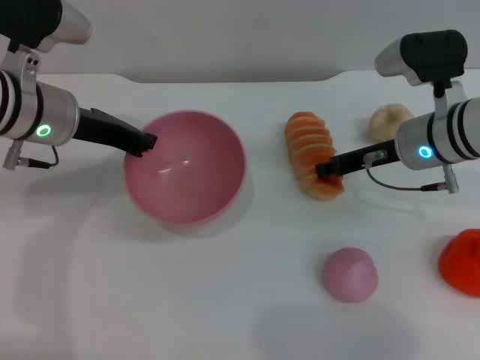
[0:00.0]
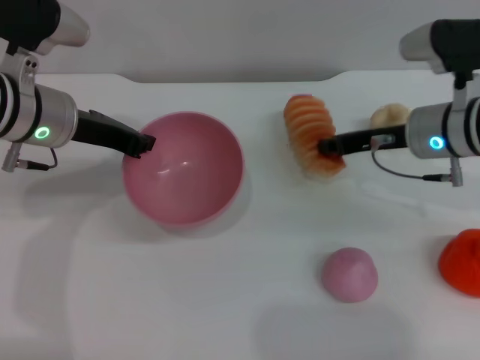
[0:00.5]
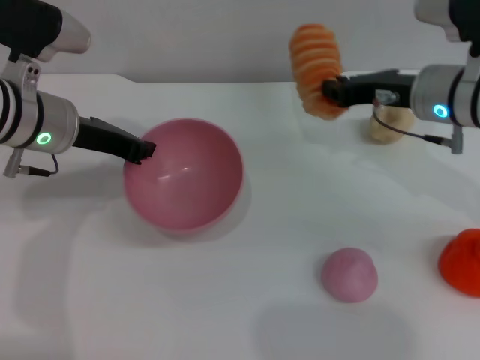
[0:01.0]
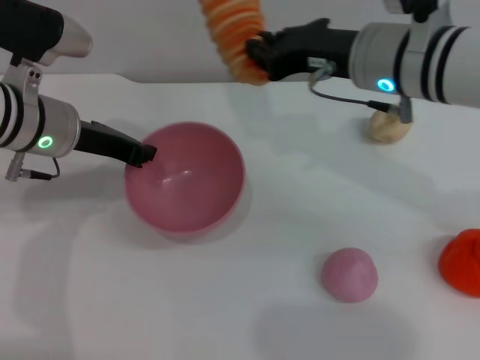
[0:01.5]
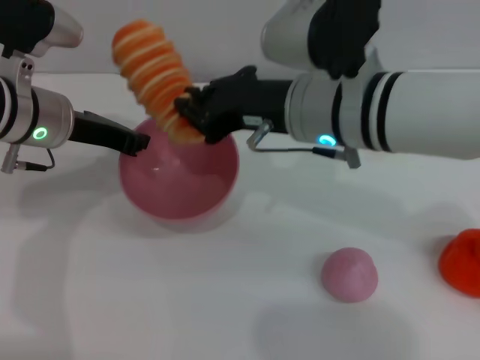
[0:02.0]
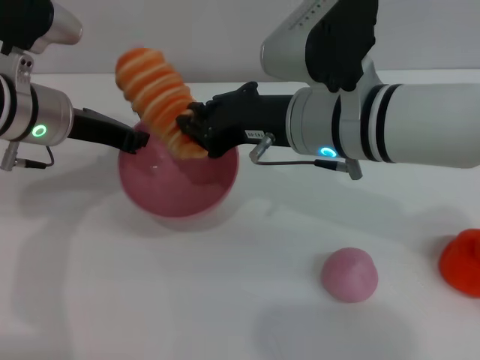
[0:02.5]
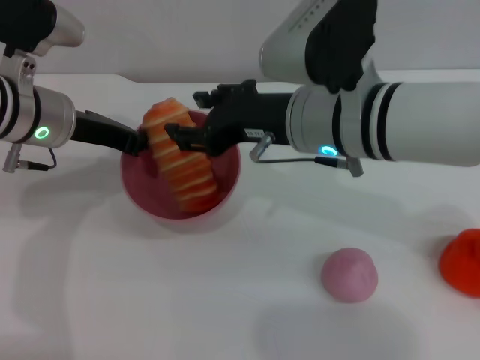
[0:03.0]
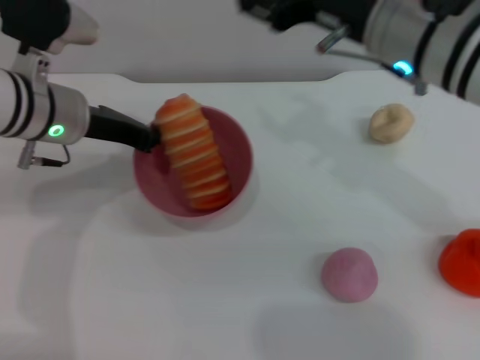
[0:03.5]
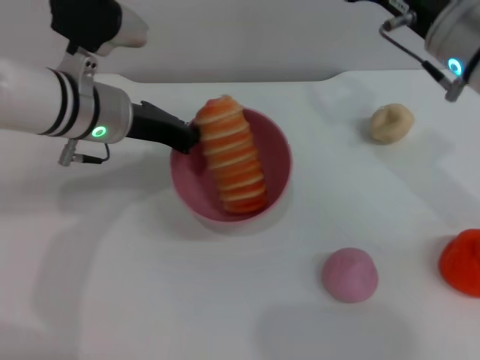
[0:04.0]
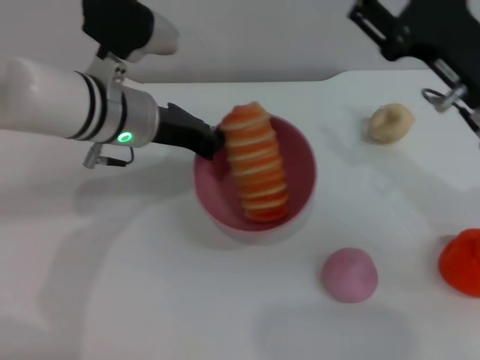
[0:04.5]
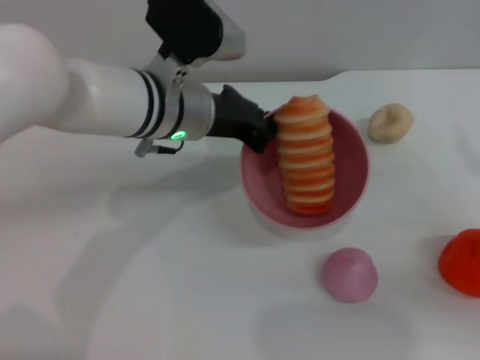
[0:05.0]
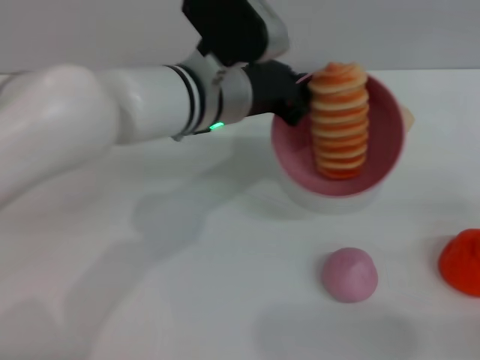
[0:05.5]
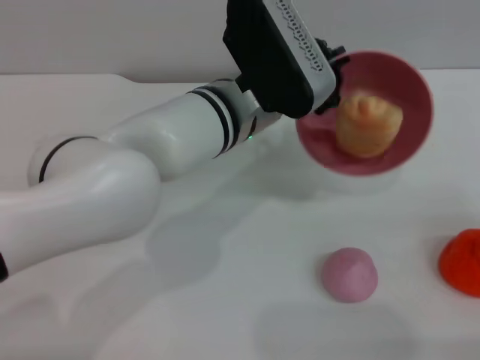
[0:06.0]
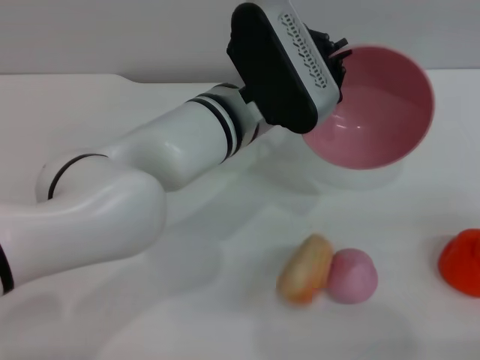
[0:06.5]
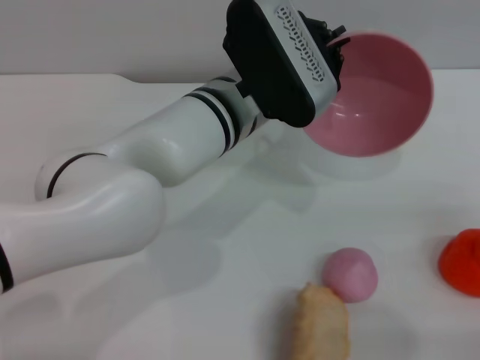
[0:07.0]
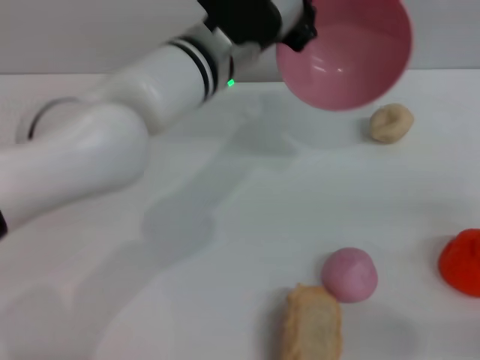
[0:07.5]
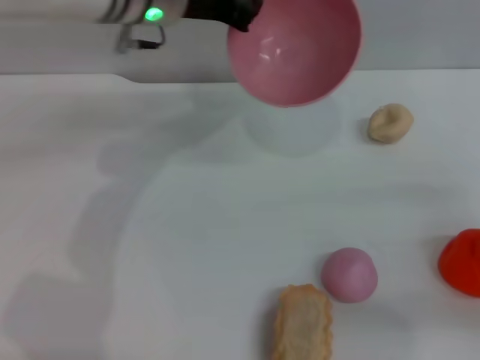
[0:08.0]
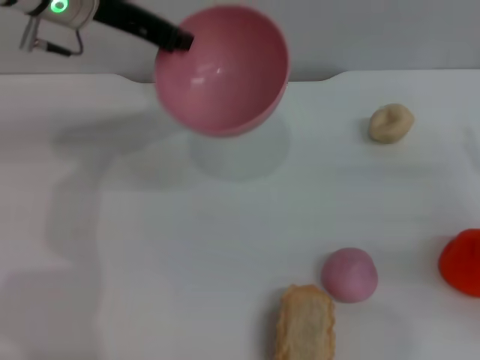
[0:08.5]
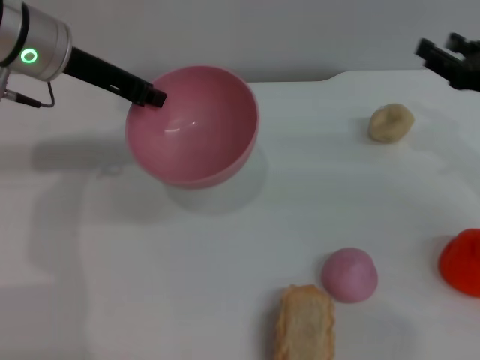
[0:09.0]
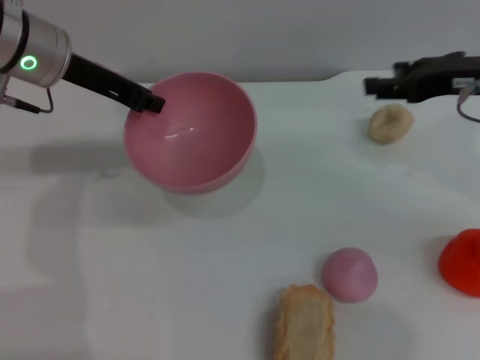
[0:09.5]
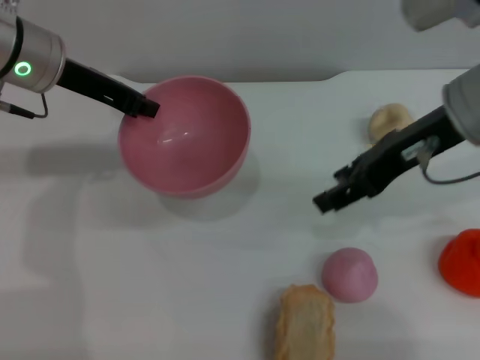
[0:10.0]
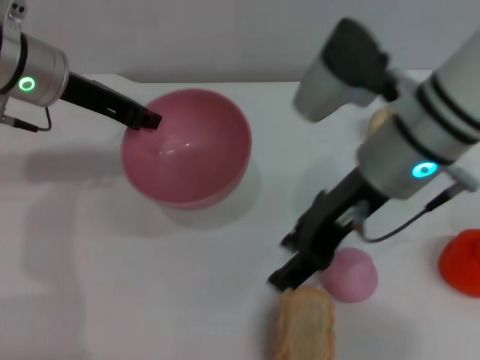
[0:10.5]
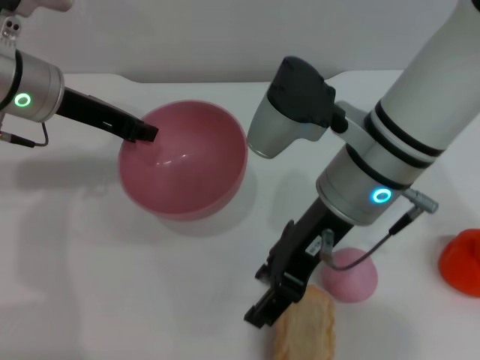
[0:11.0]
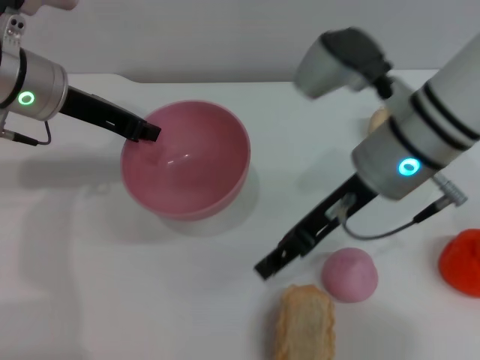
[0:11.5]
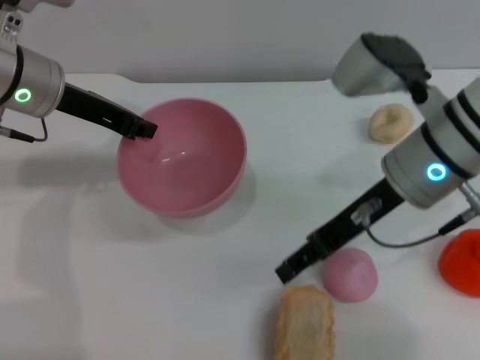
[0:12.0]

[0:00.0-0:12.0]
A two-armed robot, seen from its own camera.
Task of the whole recording: put the bread into the pink bowl and pour it out repeatedly.
Step, 0:01.0 to 0:03.0: Place the bread into the bowl.
Step, 0:03.5 to 0:07.0: Pour the bread out of the bowl.
0:00.0 to 0:02.0: The right gripper moves to the left, upward and backward, roughly 15 cm.
0:02.0 to 0:04.0: The left gripper travels to the right by about 5 cm. The right gripper heads to the right, covering approximately 10 cm, and opens its fingers.
0:04.0 to 0:06.0: The right gripper heads to the right and backward, covering roughly 25 cm; the left gripper travels to the right by approximately 15 cm.
0:06.0 to 0:08.0: The left gripper goes about 15 cm forward, to the left and upward, while the right gripper changes place by some 5 cm.
0:08.0 to 0:10.0: The left gripper moves to the left, about 10 cm. The right gripper shifts about 25 cm to the left, upward and forward.
0:10.0 to 0:12.0: The right gripper travels downward by approximately 5 cm.

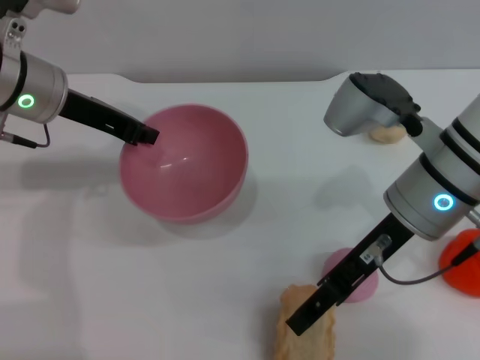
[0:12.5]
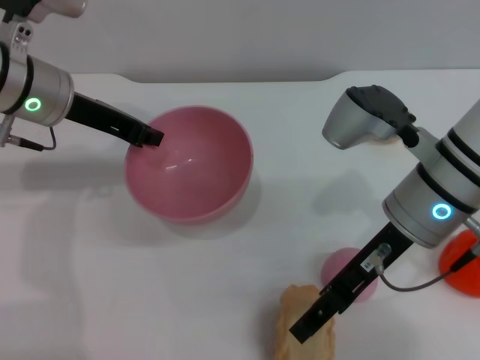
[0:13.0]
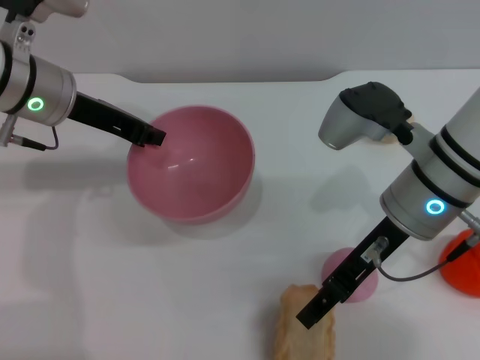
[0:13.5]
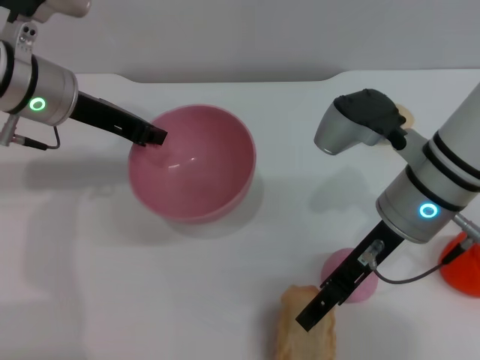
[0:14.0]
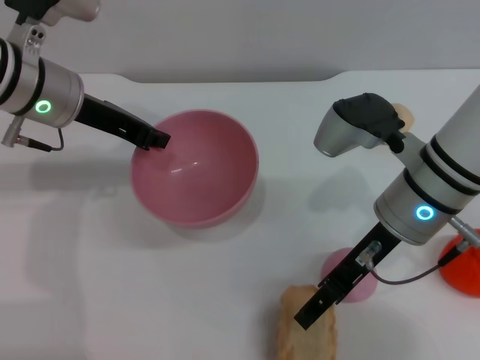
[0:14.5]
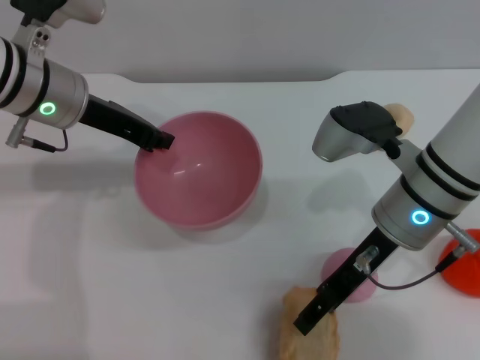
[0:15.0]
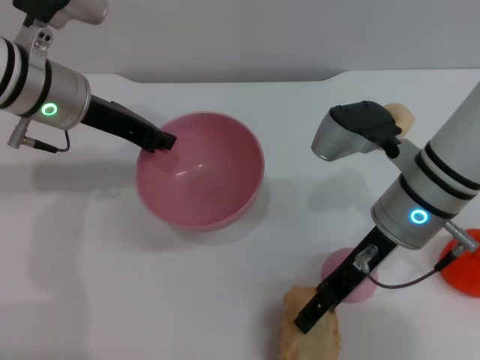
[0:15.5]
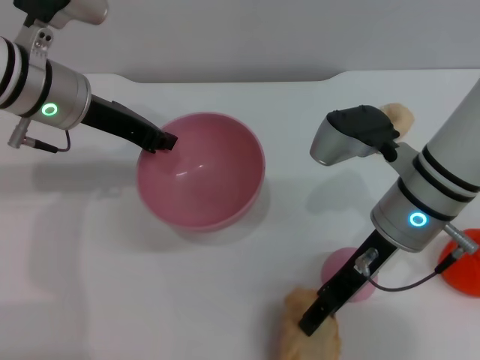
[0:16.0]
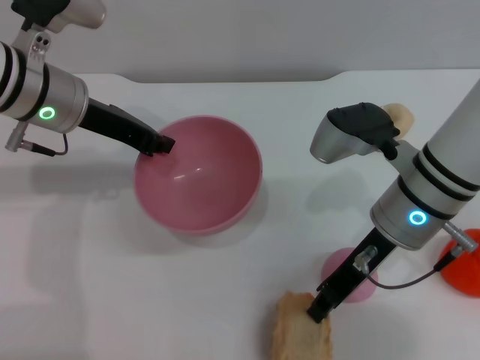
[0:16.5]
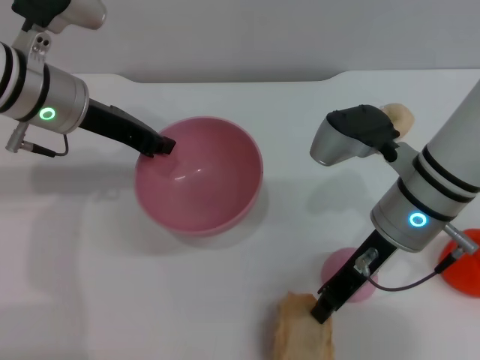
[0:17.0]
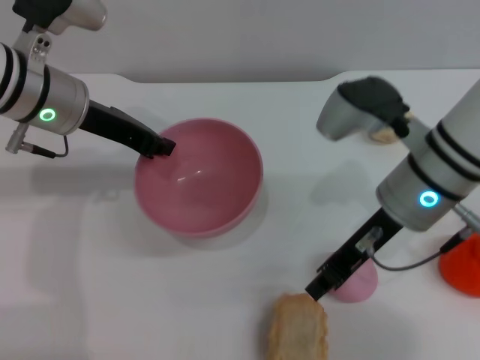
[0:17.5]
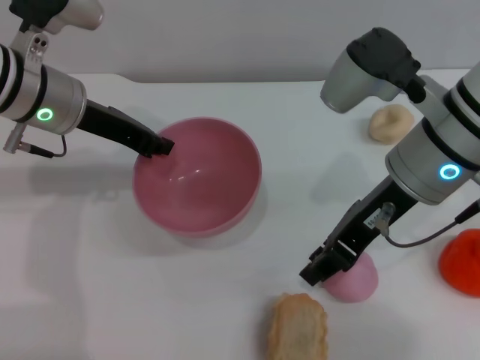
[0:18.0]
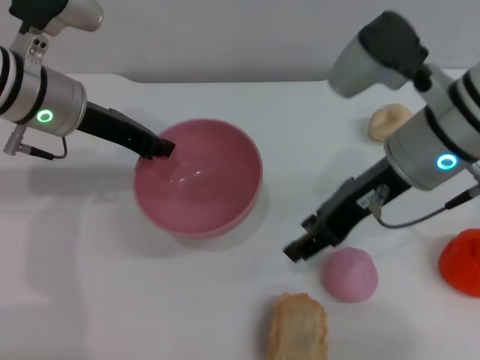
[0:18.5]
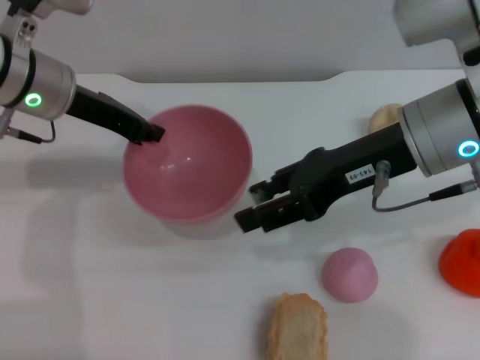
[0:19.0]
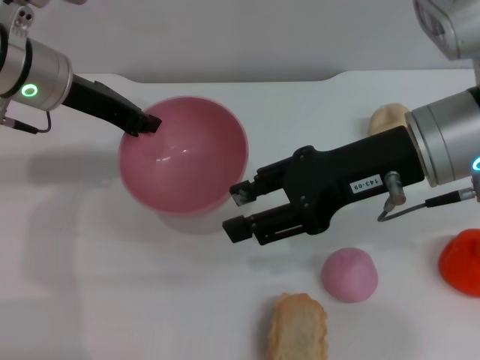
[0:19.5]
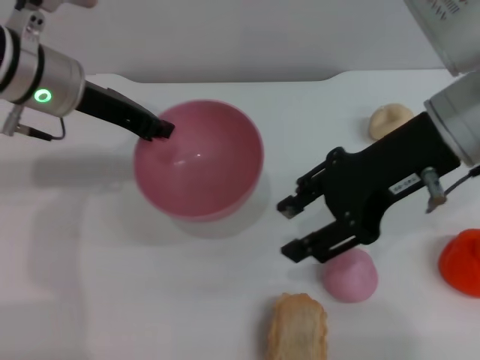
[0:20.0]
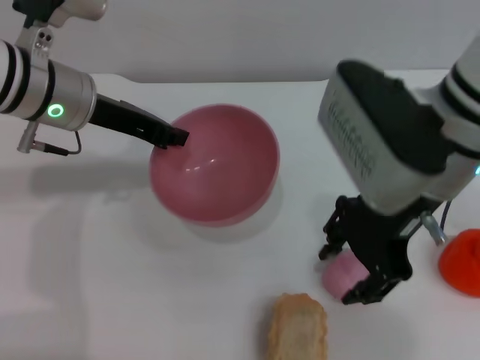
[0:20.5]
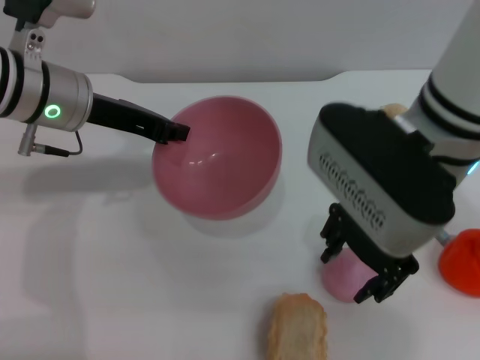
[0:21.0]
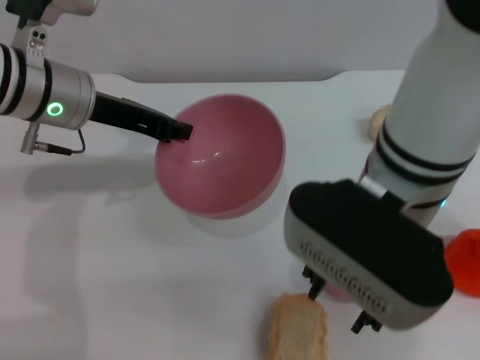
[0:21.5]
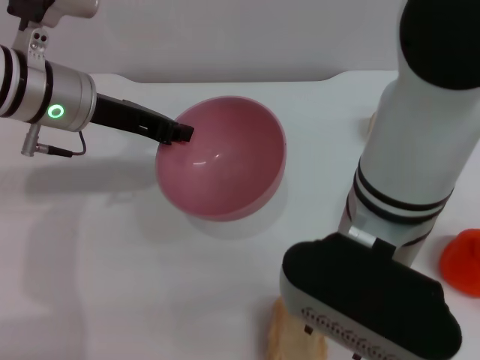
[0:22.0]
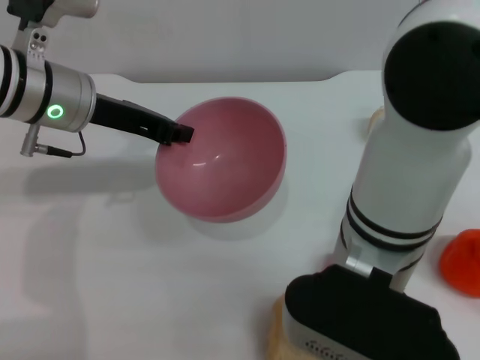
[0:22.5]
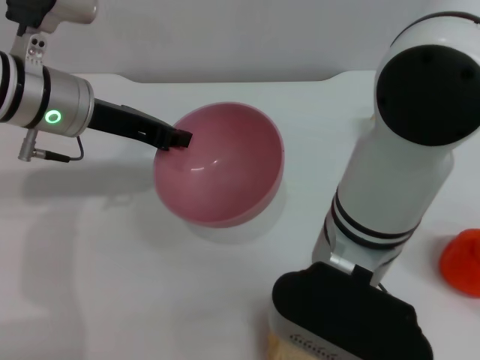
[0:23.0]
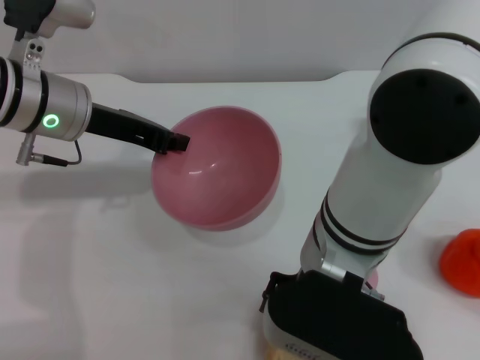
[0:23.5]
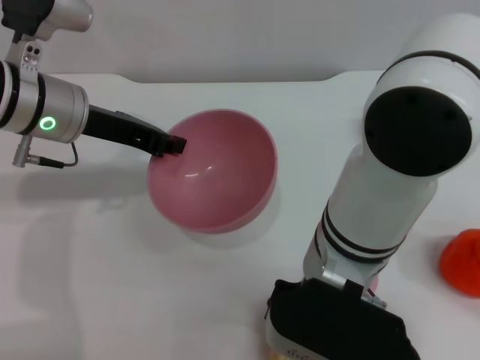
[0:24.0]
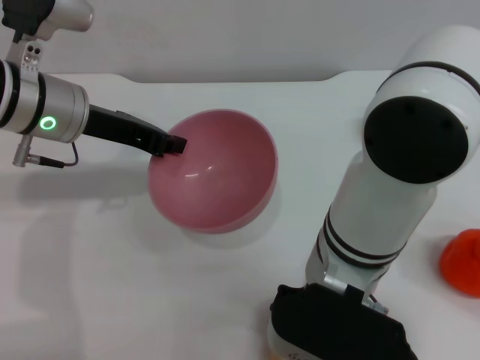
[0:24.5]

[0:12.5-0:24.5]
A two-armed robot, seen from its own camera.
Task of the whole recording: put the bread into the pink bowl and pour it out repeatedly.
0:12.5 to 0:14.5: There are only small adjustments of the grippers.
0:14.5 to 0:16.5: The right gripper closes up.
0:16.5 to 0:18.5: The right gripper goes approximately 5 cm upward, and closes, then opens again.
0:20.5 to 0:22.5: The right gripper travels to the left and backward by approximately 10 cm.

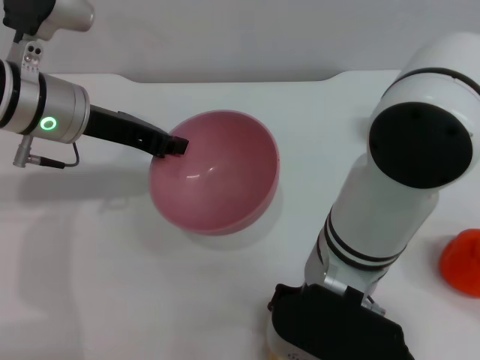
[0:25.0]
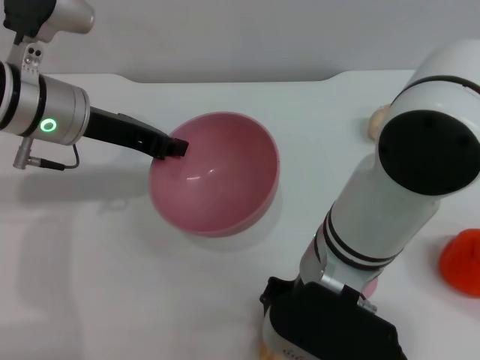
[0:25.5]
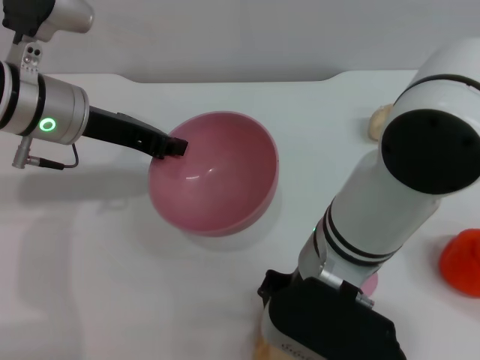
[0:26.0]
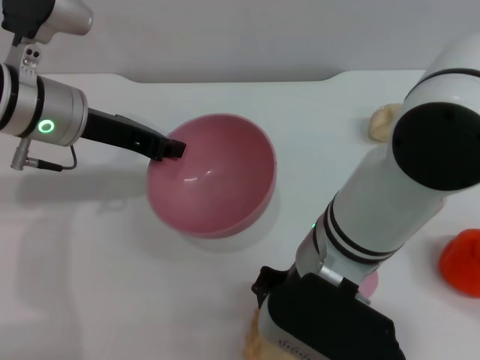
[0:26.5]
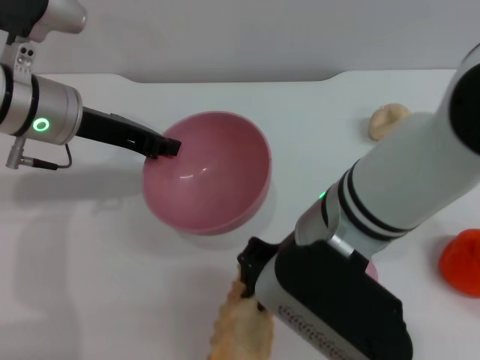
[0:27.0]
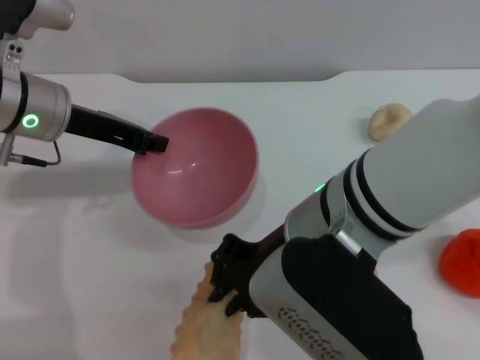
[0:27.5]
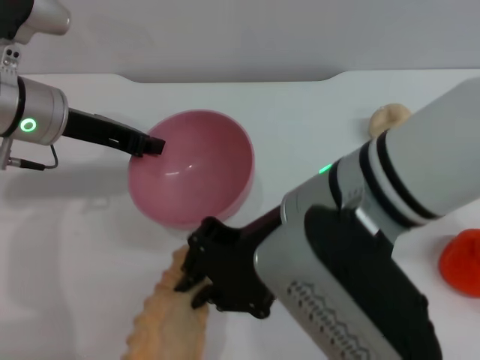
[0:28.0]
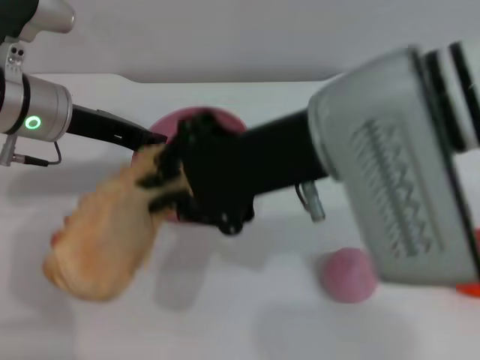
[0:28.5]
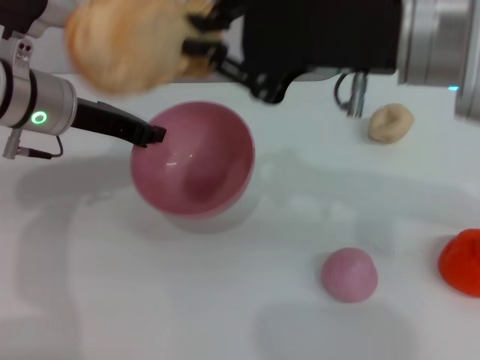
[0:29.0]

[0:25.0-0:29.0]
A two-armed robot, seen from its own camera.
Task of the whole recording: put the bread into the pink bowl and pour it out repeatedly.
Step, 0:25.0 to 0:27.0: Pick up the bread with the right gripper.
0:25.0 to 0:27.0: The right gripper closes its fingers.
0:27.0 to 0:29.0: The right gripper heads upward and to the right, covering some 10 cm.
